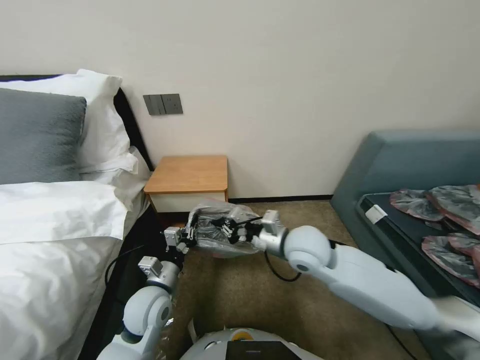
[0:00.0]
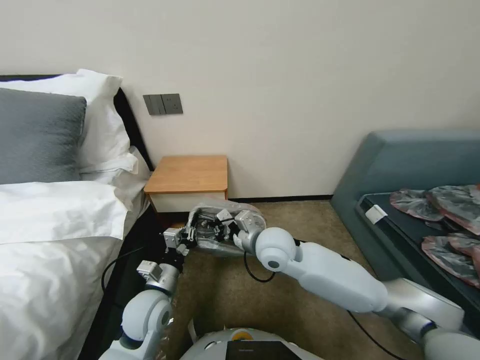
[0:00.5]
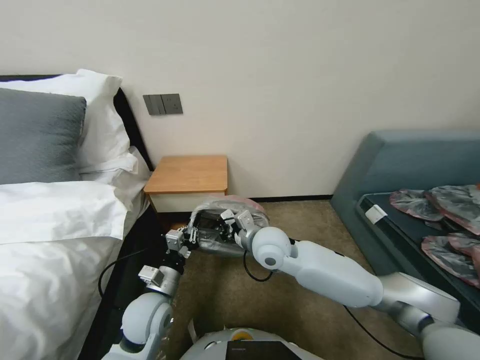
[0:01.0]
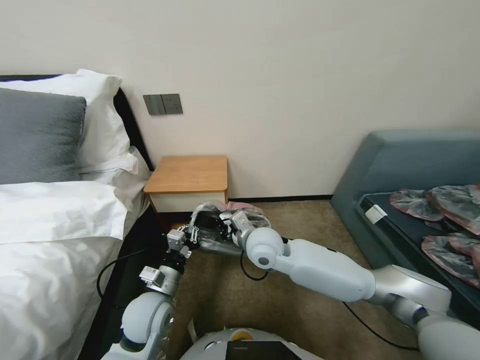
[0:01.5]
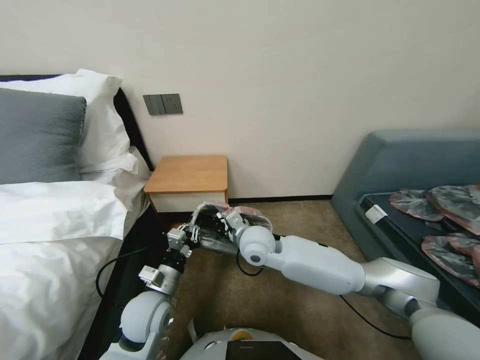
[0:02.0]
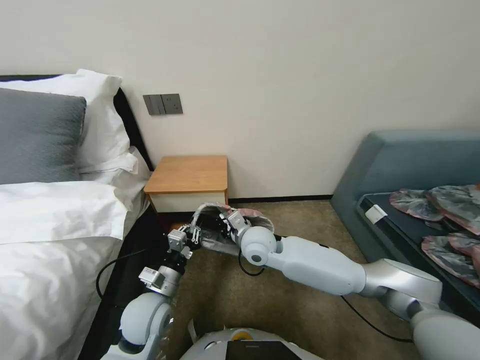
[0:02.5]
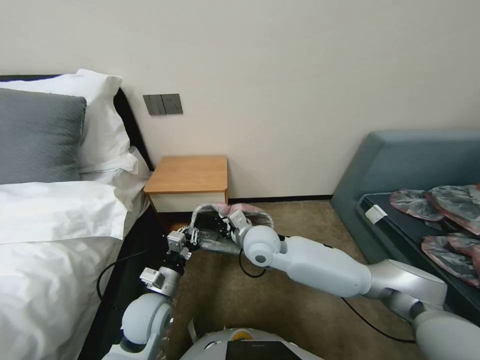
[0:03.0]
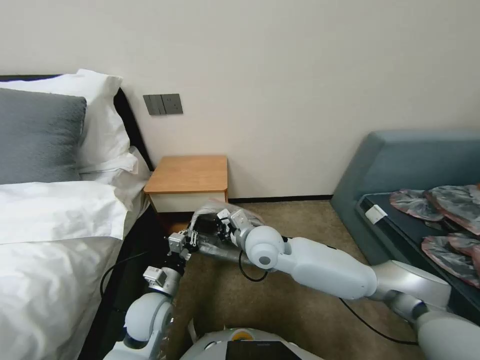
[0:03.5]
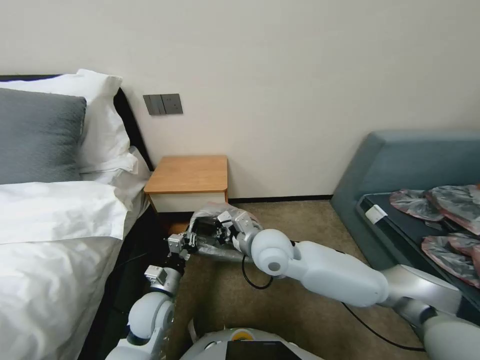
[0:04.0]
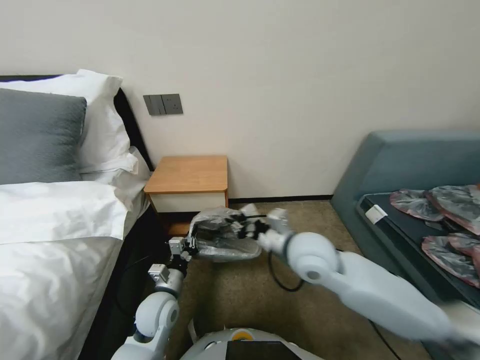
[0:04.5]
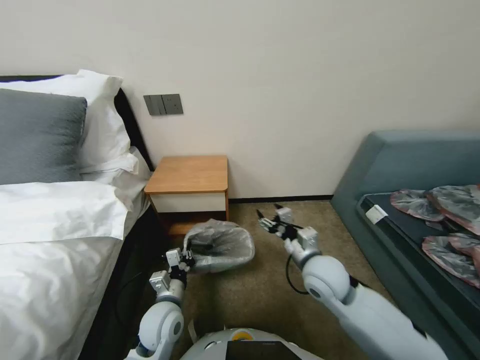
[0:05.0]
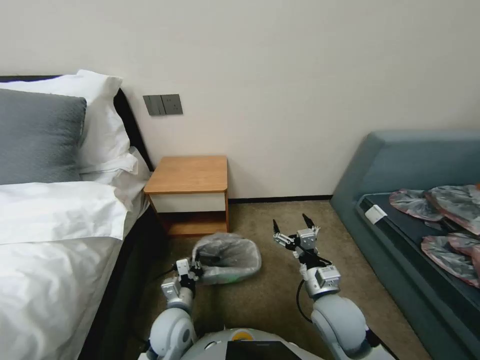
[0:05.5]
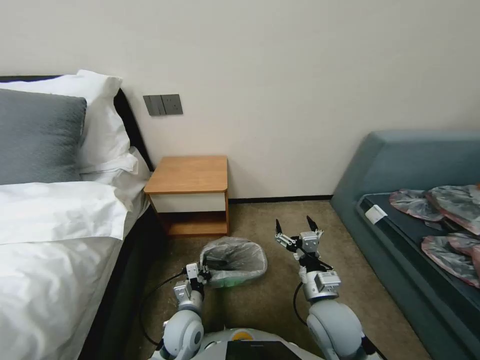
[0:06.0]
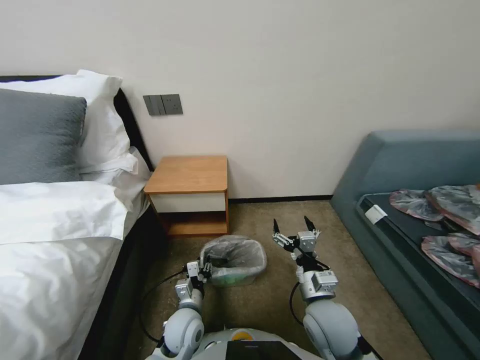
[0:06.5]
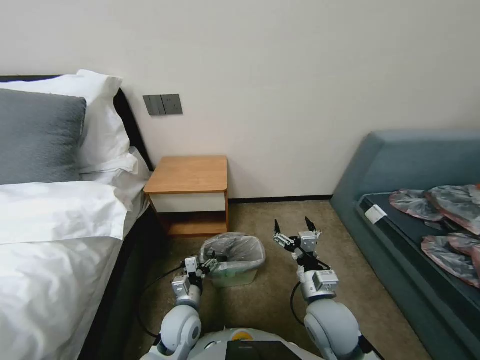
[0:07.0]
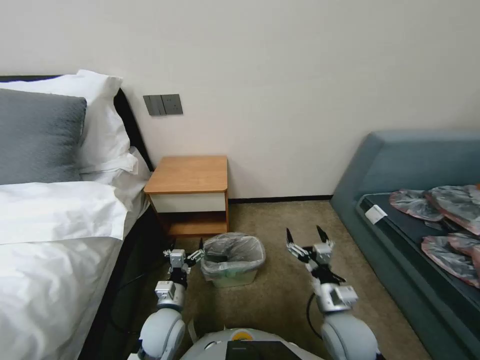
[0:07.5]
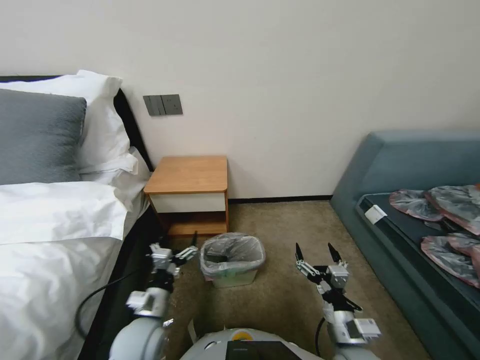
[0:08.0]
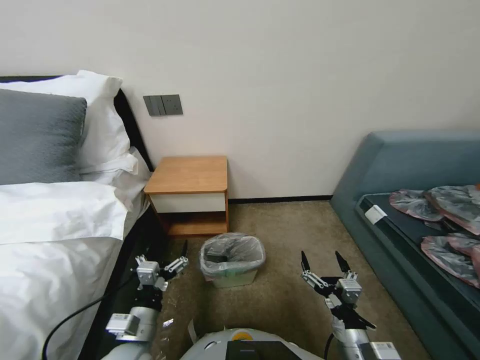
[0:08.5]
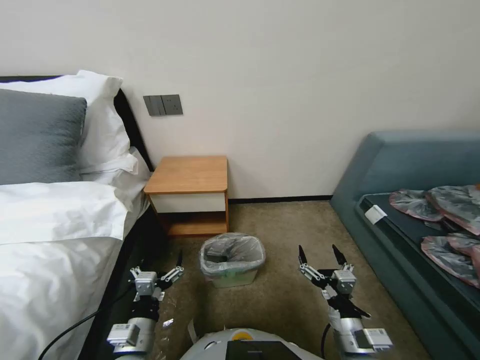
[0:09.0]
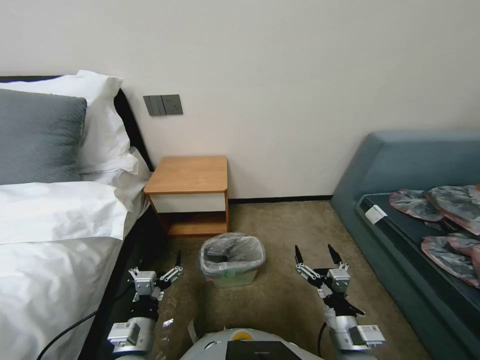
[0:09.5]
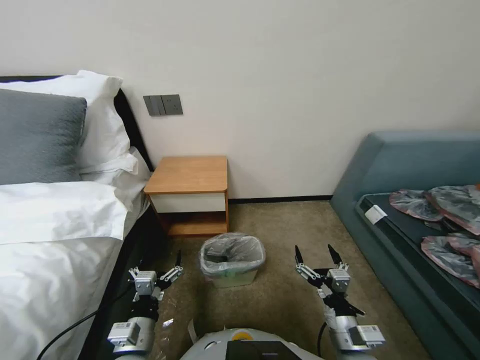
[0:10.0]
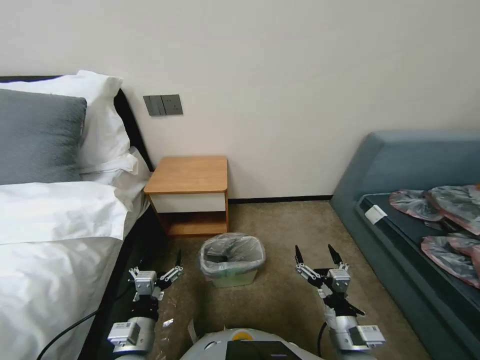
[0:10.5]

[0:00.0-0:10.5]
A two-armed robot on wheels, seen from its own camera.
Task of the whole recording: Pick up the garbage bag from the table and place it over the trash can.
0:00.0 to 0:02.0: The right gripper is displaced to the left and downward by about 10 cm.
0:02.0 to 0:04.0: There are only small adjustments of the grippers.
0:04.0 to 0:06.5: The right gripper moves backward, to the right and downward, some 20 cm, and opens its fingers, while the left gripper is displaced to the right and downward by about 10 cm.
0:06.5 to 0:08.5: The right gripper moves backward and to the right, some 10 cm. Meanwhile the left gripper goes approximately 15 cm upward, to the left and backward, and opens its fingers.
0:08.5 to 0:10.5: There are only small adjustments of the grippers.
